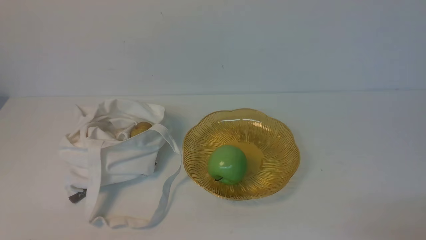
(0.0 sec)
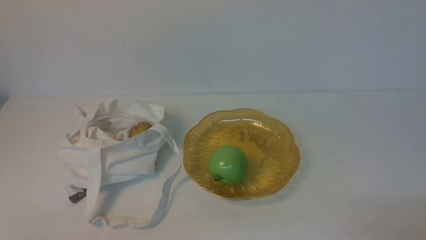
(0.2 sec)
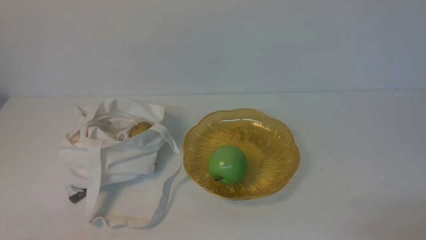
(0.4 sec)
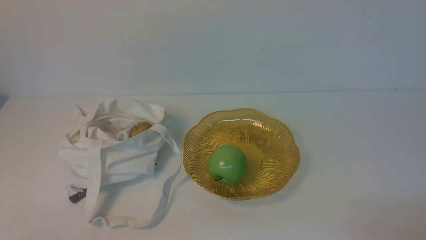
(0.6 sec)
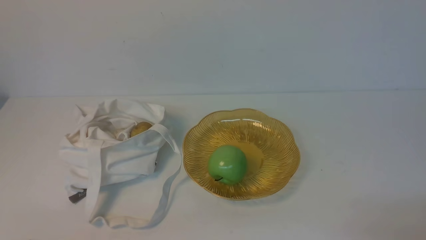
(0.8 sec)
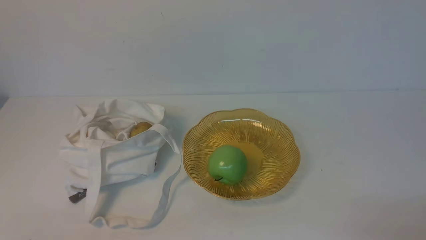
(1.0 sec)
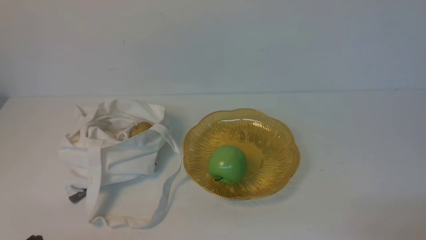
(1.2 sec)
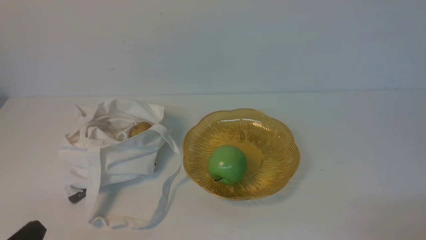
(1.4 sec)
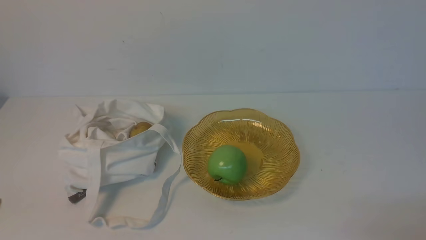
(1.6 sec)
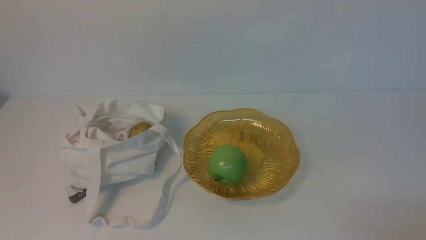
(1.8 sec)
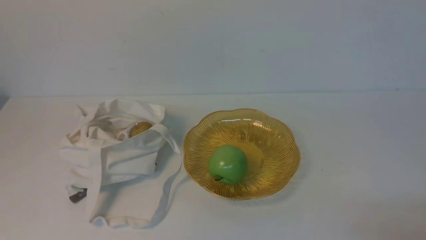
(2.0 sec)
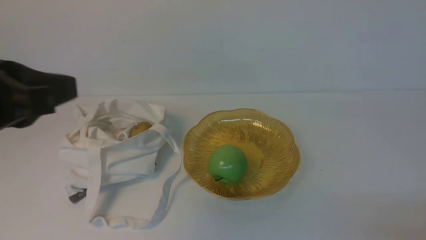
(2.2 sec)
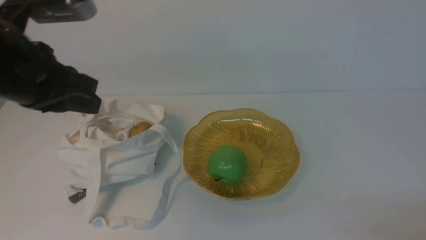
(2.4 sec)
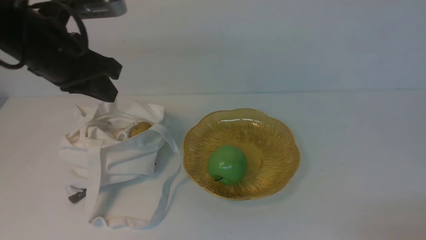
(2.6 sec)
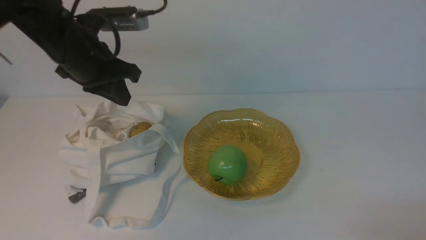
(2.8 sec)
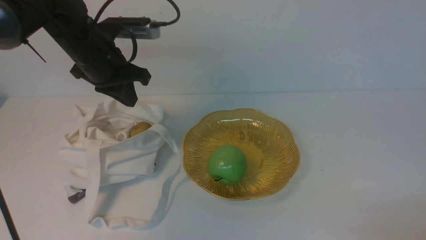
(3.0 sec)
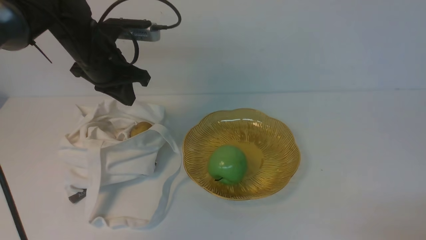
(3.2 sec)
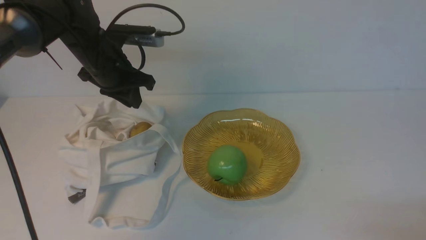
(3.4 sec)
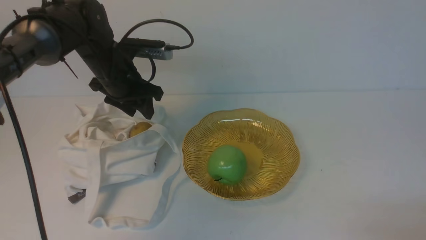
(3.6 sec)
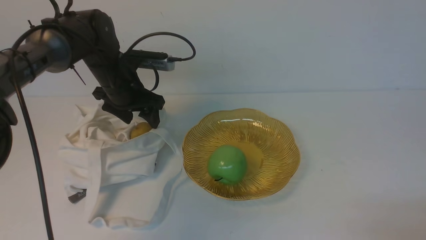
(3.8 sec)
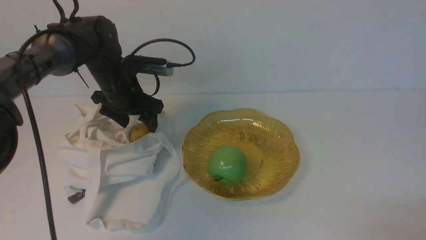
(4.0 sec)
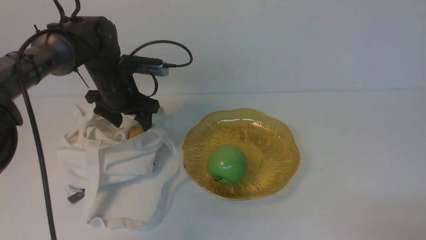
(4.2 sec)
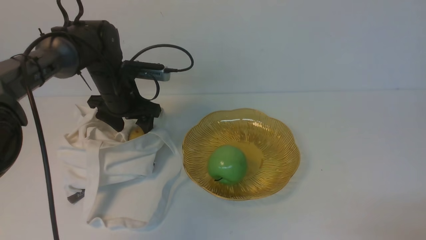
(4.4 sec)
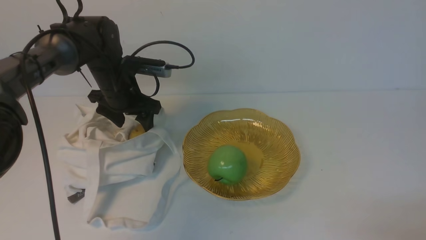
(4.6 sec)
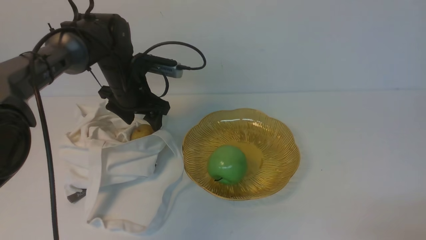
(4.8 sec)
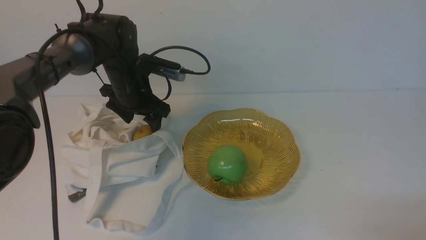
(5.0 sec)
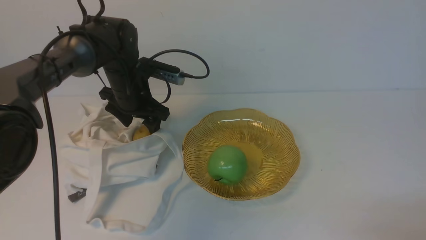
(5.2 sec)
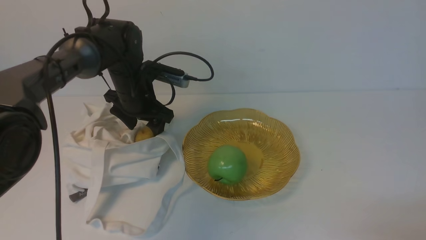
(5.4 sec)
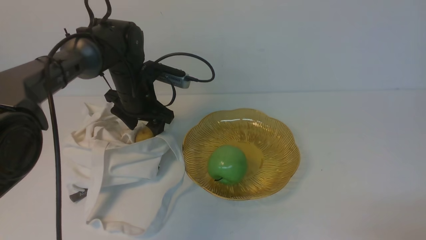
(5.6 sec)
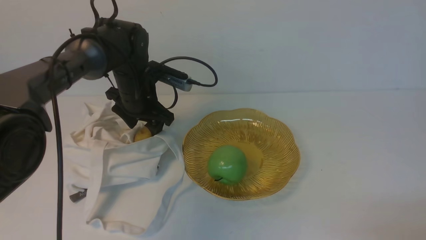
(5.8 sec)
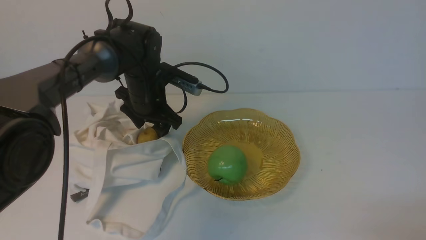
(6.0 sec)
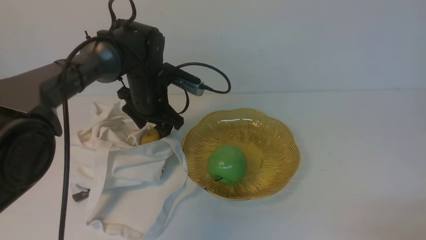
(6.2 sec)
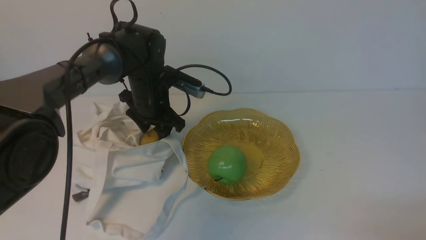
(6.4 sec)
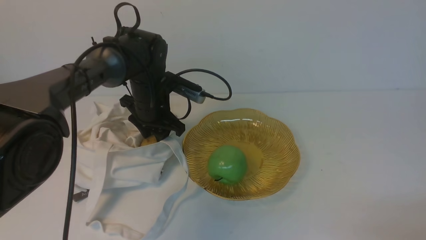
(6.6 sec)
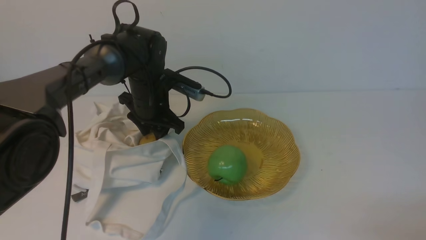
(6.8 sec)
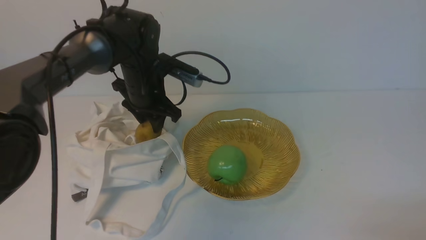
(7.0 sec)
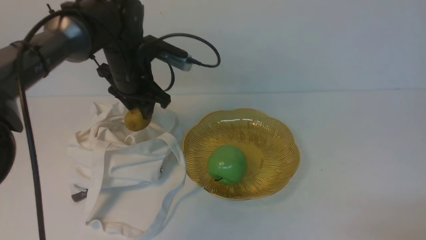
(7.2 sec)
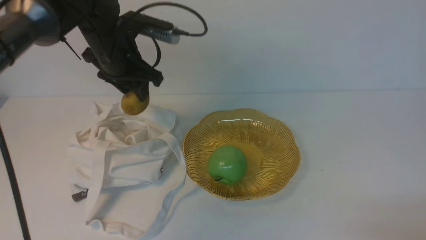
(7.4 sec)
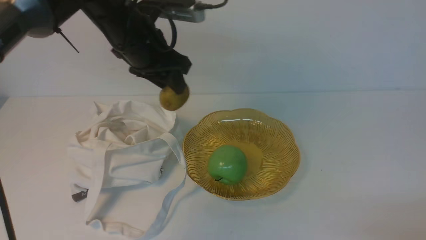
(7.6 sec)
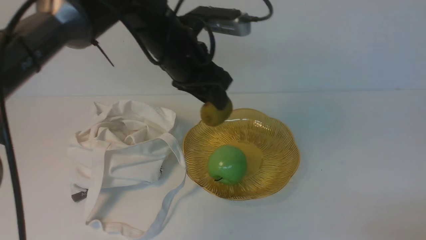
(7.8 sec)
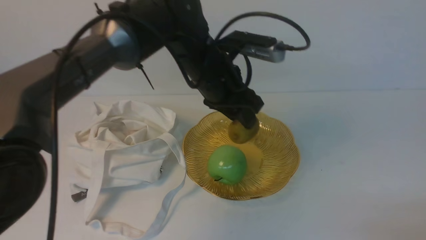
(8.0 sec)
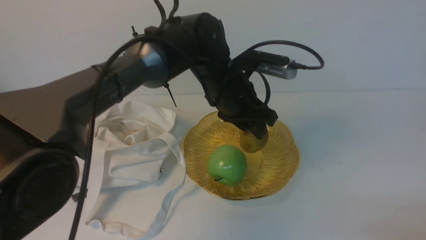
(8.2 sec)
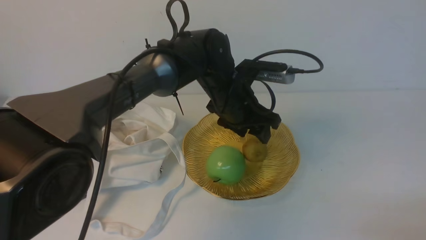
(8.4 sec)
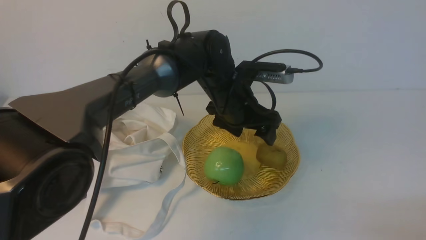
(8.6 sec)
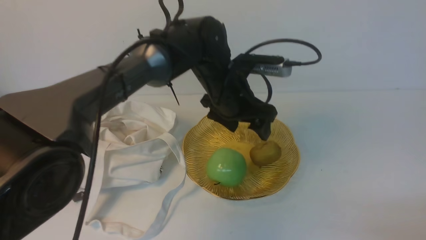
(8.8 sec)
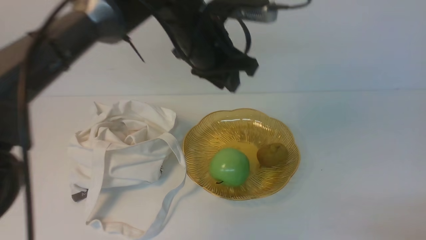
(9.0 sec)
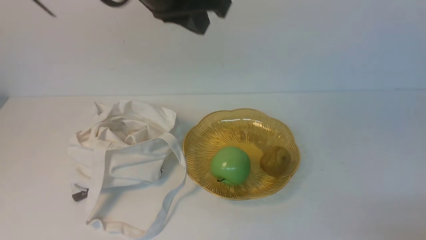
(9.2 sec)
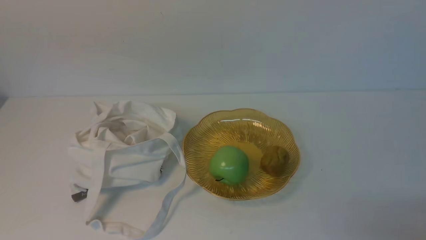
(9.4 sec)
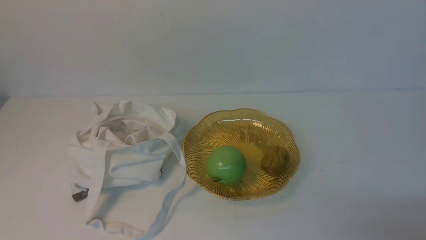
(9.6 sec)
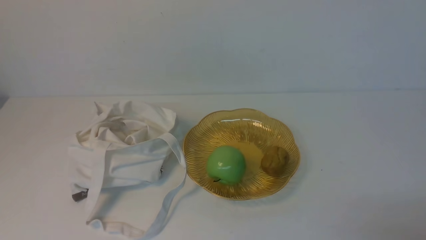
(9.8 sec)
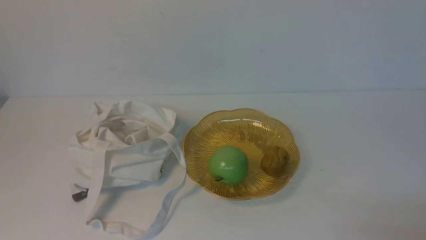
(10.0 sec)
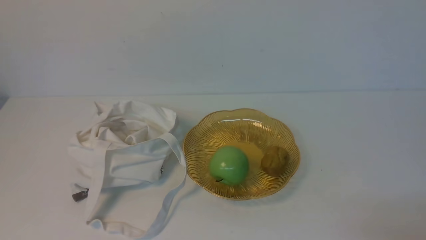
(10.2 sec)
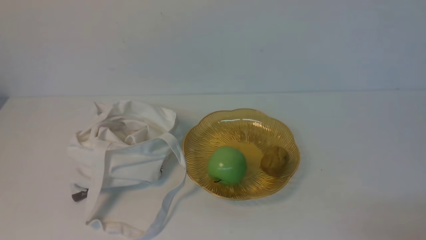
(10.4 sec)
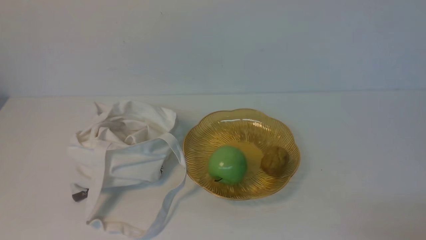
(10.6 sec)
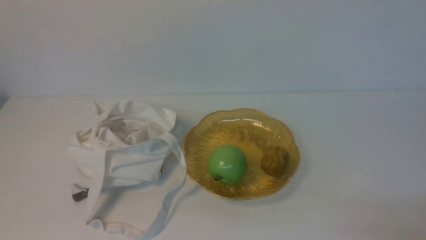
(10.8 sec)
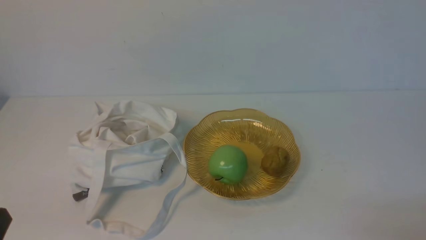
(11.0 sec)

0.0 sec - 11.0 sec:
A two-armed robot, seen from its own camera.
Step, 0.0 sec - 7.0 sec: use the left arm to grab a kiwi from the bag.
Step, 7.2 sec - 8.6 sec: use the left arm to put the kiwi into the empty plate on the right.
1.6 sec - 3.2 sec: The left gripper travels forward by roughly 35 cm.
3.2 sec - 4.8 sec: The left gripper is displaced downward by about 10 cm, and opens.
4.8 sec - 6.2 sec: The grippers stay close to where they were, moving slightly.
6.2 sec - 7.8 sec: The left gripper shifts some 10 cm upward, and closes.
7.8 sec - 9.4 sec: The left gripper heads upward and backward, covering some 20 cm, and closes up.

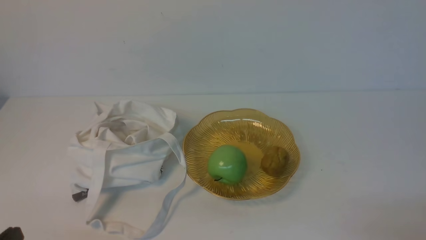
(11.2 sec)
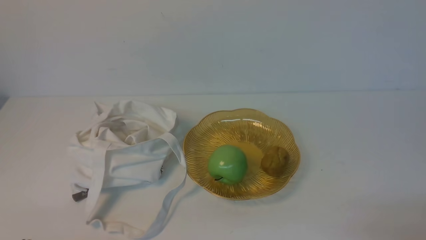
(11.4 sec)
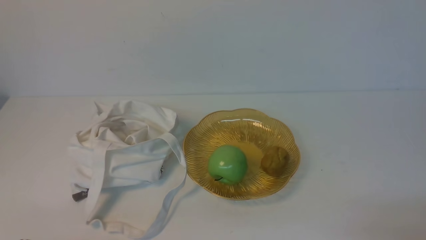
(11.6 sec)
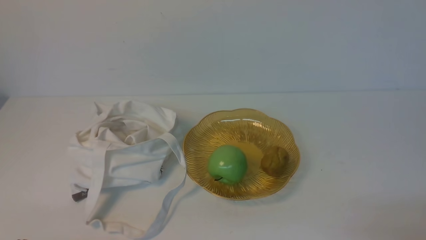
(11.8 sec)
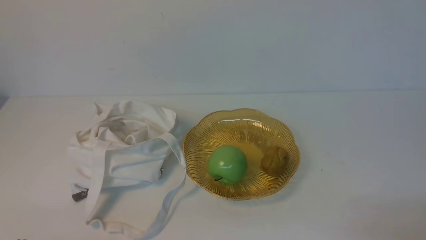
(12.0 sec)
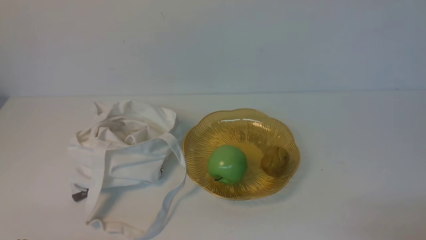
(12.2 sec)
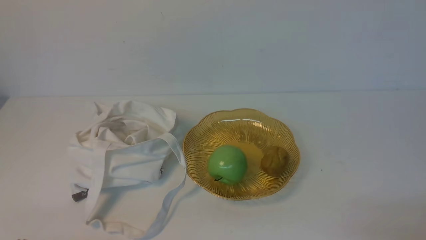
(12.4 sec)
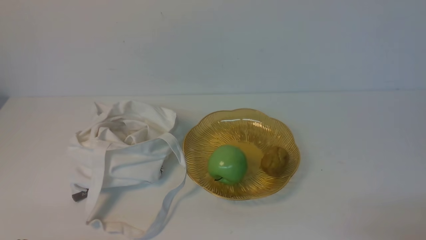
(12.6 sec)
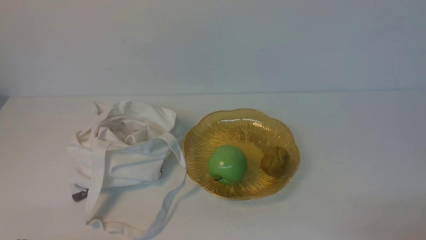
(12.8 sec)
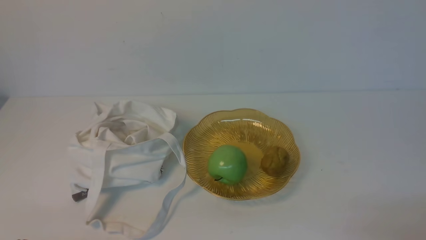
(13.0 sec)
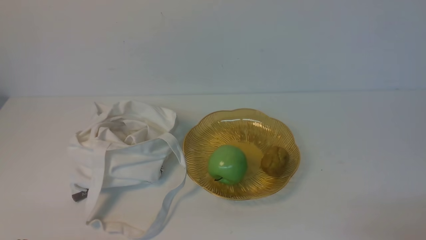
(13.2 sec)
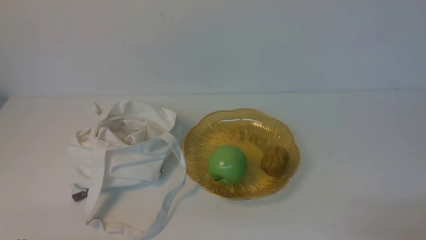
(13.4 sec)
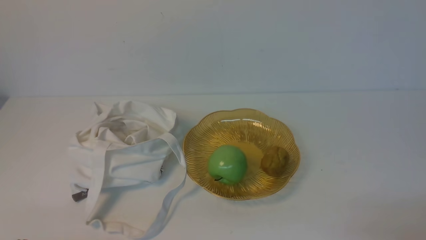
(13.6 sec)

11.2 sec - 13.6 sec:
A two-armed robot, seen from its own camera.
12.4 sec - 13.6 sec: The two grippers keep their place.
